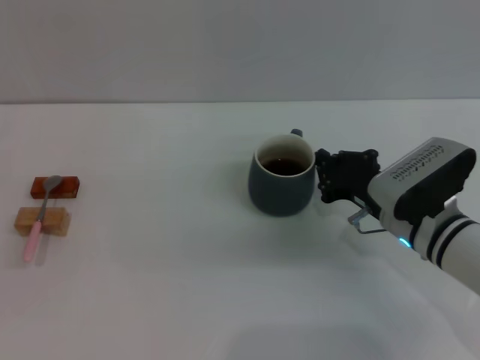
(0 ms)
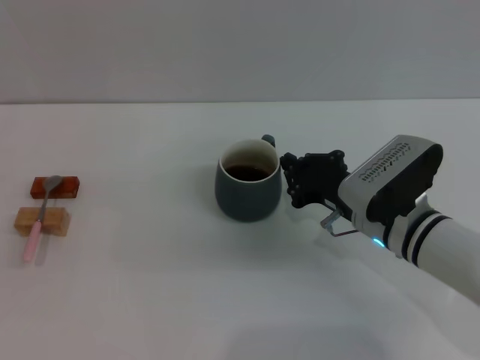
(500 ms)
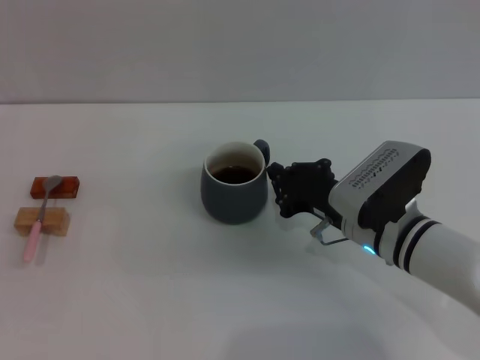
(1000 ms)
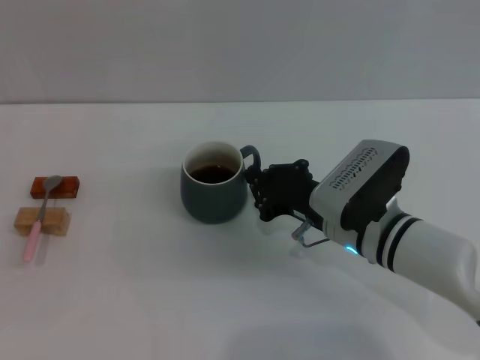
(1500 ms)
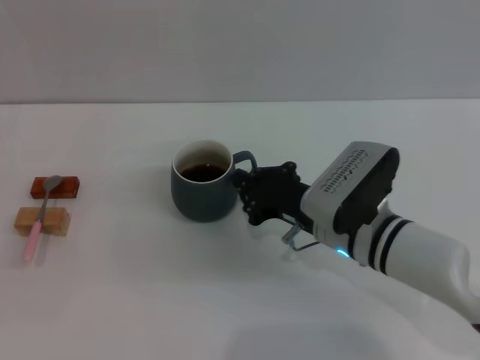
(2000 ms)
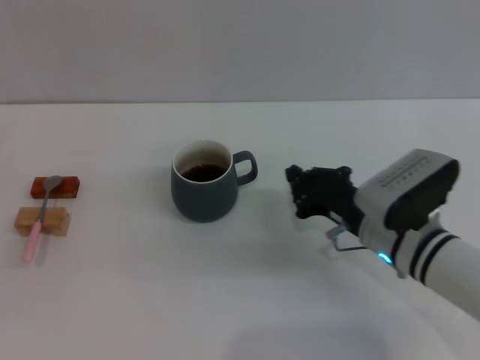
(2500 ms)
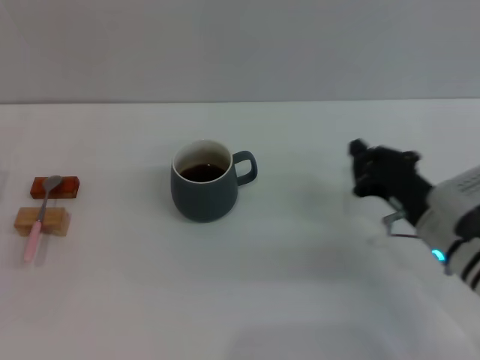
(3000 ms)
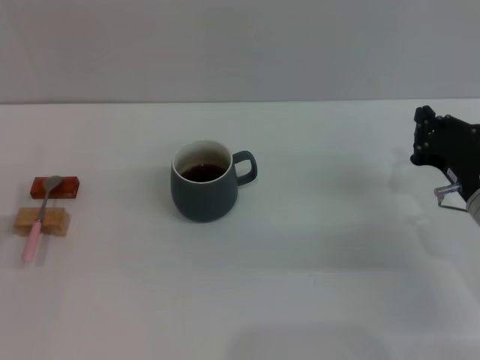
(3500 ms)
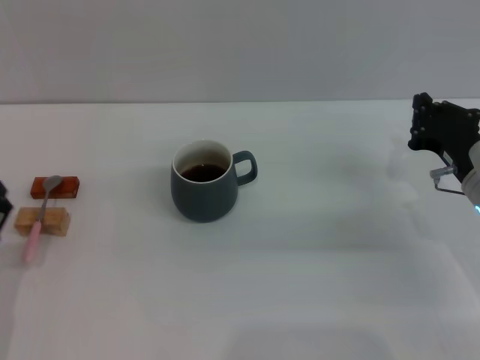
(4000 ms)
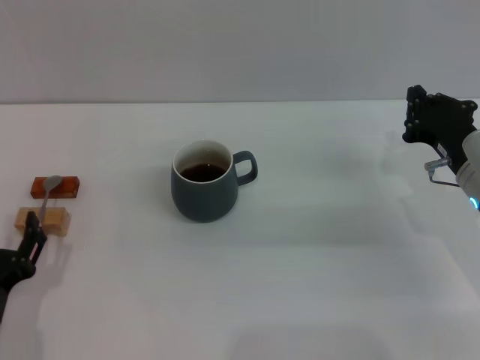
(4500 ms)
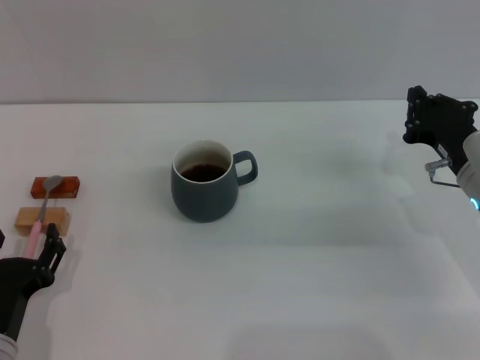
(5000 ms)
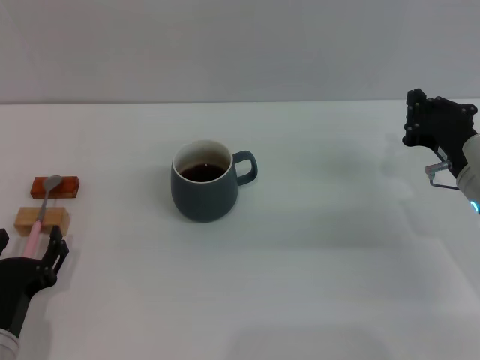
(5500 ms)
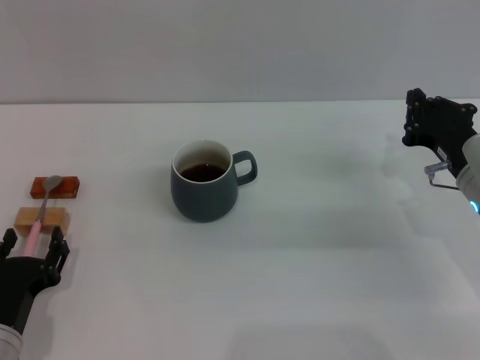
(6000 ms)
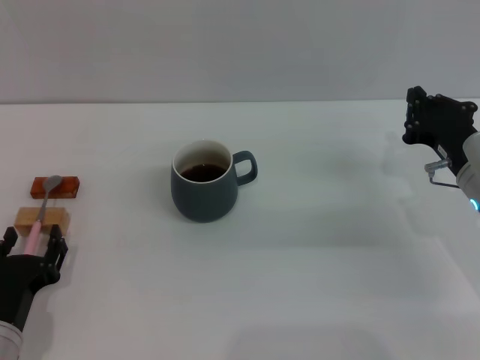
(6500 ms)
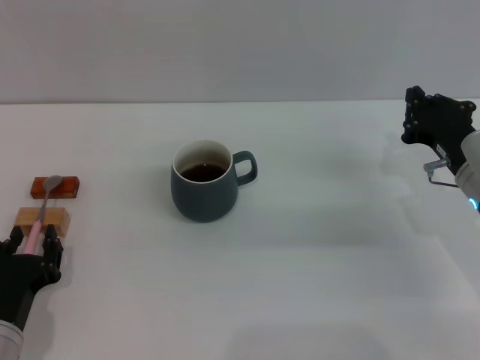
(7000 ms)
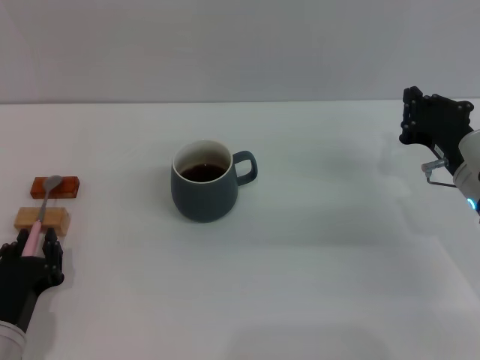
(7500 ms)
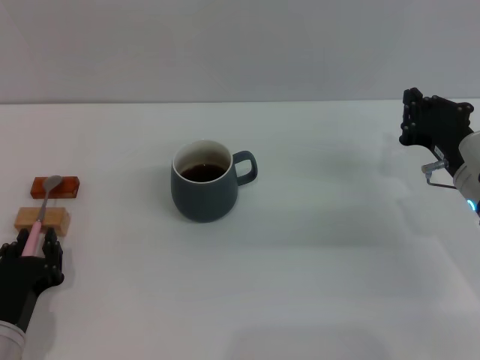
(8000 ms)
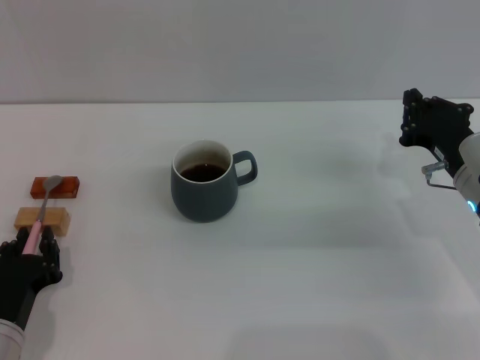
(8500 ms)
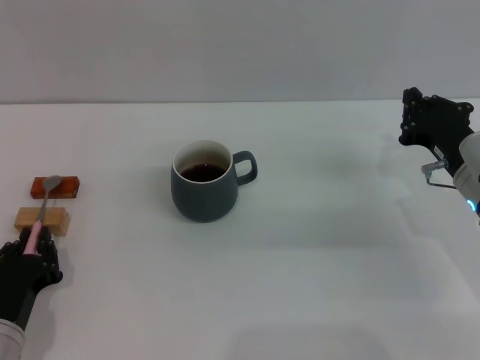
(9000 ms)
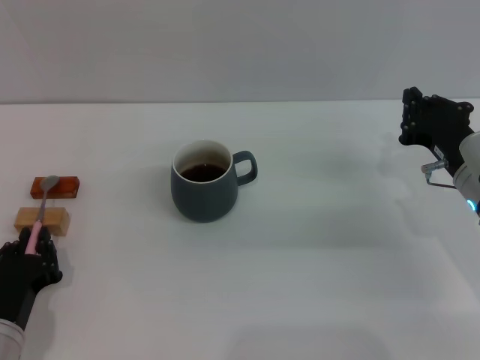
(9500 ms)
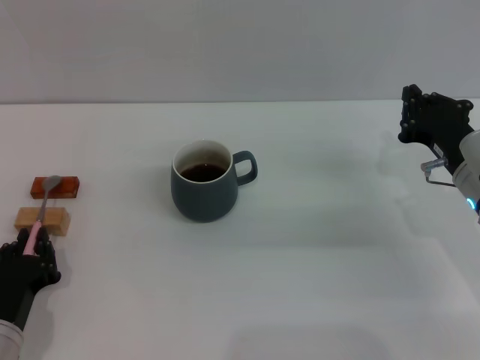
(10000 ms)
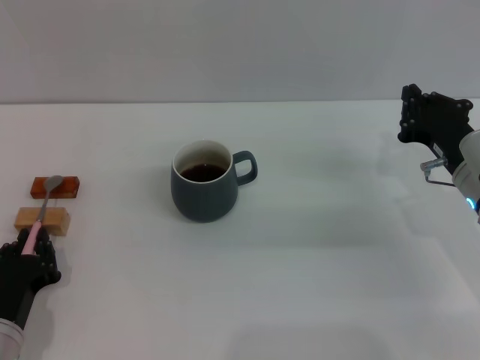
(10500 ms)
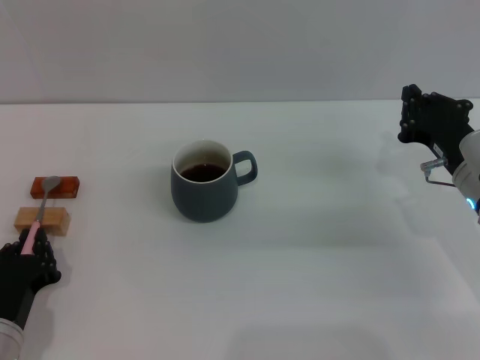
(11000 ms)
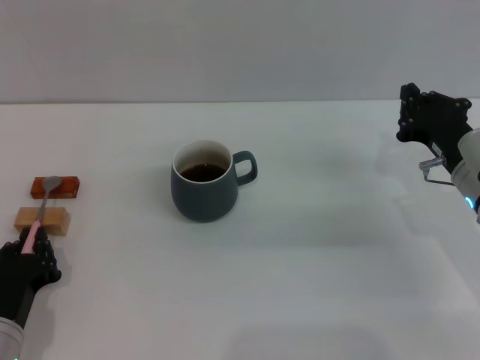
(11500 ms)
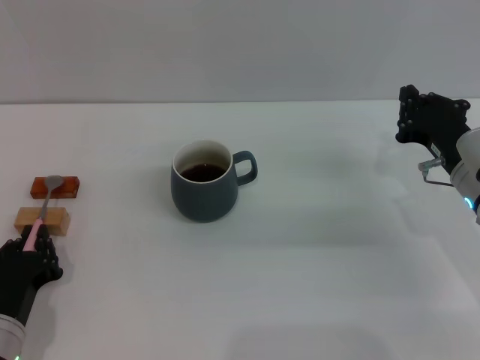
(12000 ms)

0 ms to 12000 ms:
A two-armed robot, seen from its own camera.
Task of the whole recording: Move the grey cup to the center, lift the pink spoon, stir it three times in the cup, and put the spoon into the cup.
Step, 0 ms to 2500 ms: Move the cup with coffee to the center of view with the right gripper.
0 ms to 2000 ms: The right gripper travels to the left by some 5 cm.
2000 ms to 4000 ms: The left gripper shifts roughly 10 cm backward and to the right. Meanwhile the right gripper travels to the right by some 15 cm.
4000 ms to 6000 ms: The left gripper travels downward by some 5 cm.
6000 ms to 8000 ms: The left gripper closes its fingers.
8000 ms to 12000 ms: Both grippers stay about where they are.

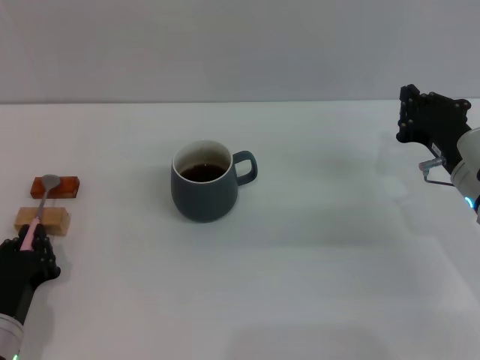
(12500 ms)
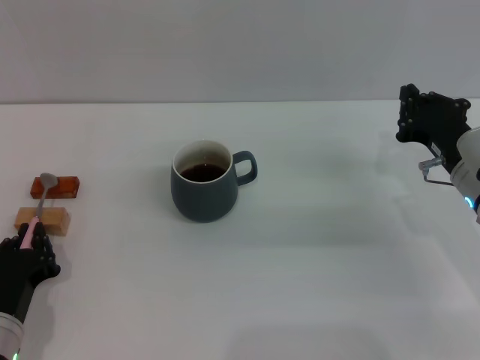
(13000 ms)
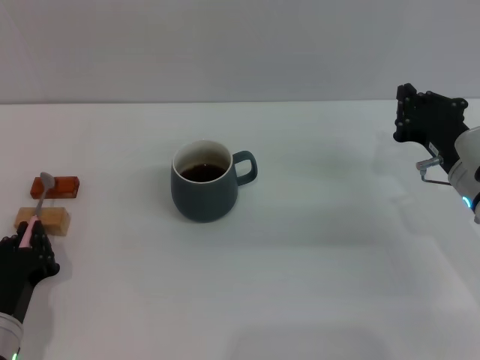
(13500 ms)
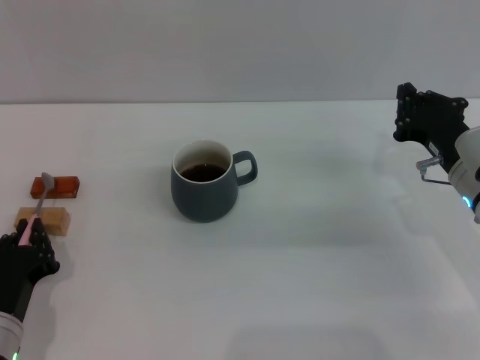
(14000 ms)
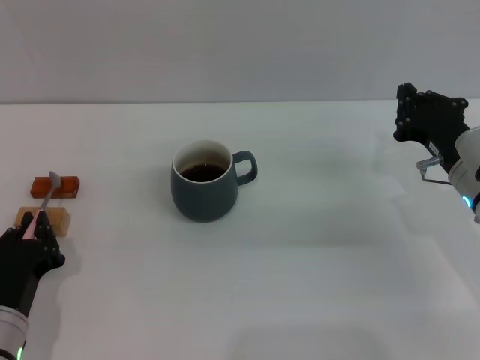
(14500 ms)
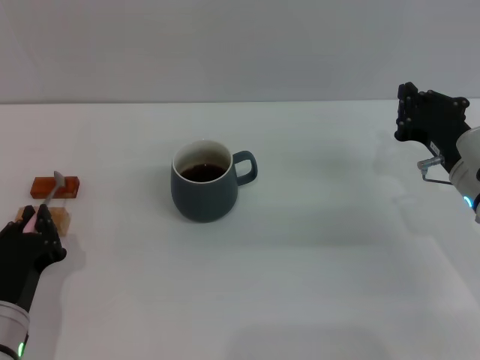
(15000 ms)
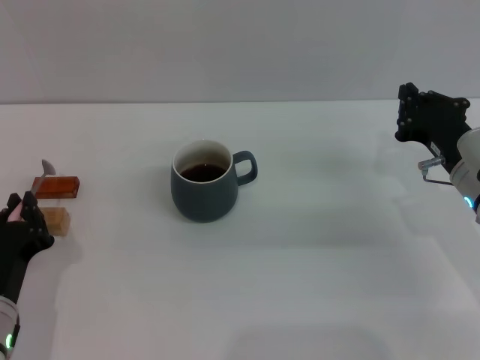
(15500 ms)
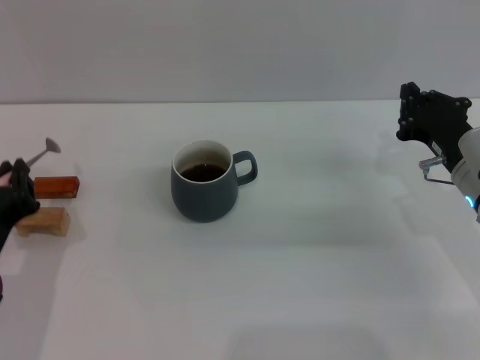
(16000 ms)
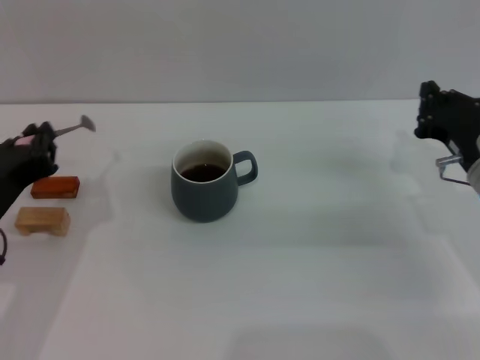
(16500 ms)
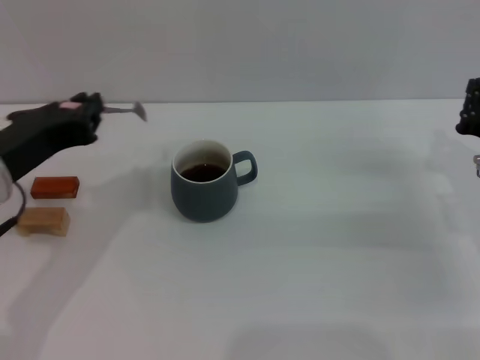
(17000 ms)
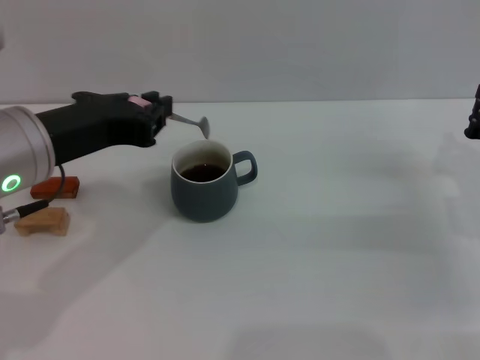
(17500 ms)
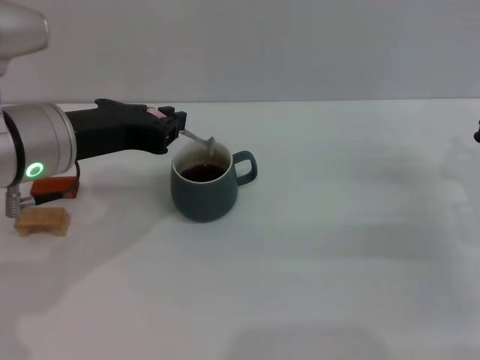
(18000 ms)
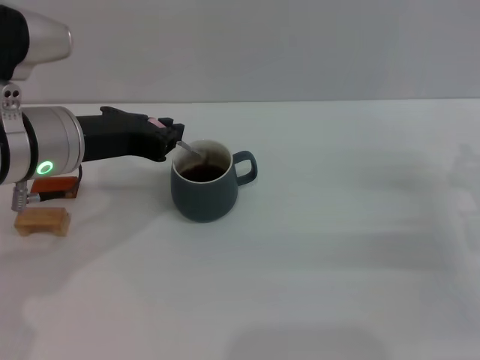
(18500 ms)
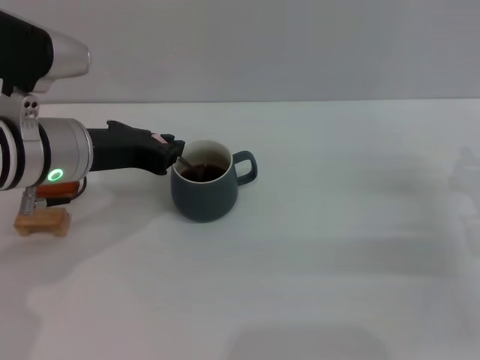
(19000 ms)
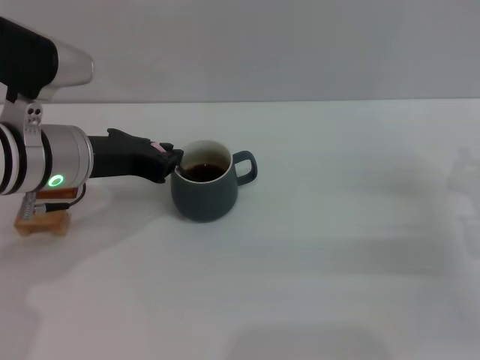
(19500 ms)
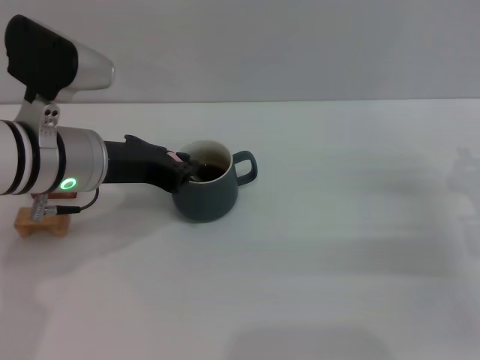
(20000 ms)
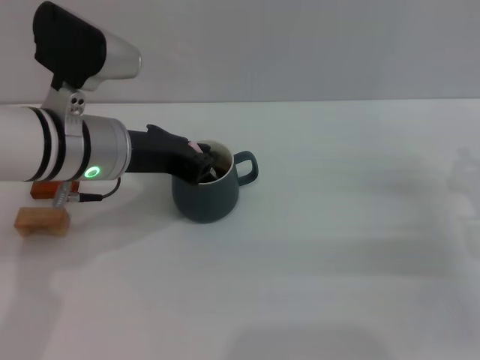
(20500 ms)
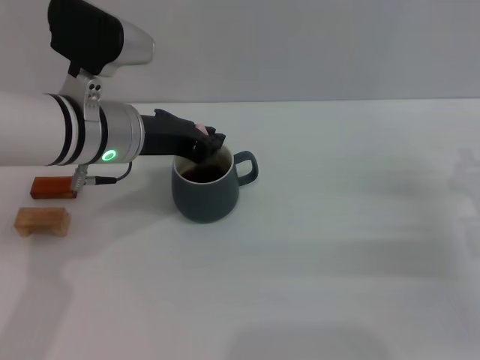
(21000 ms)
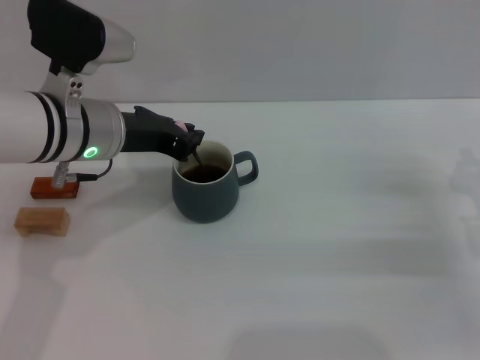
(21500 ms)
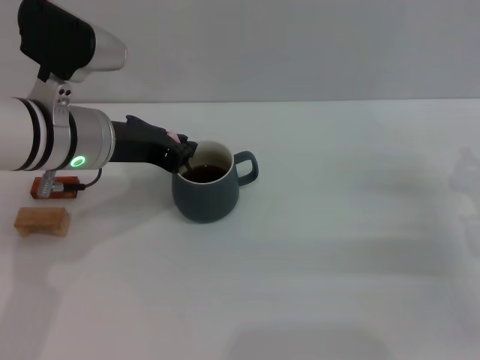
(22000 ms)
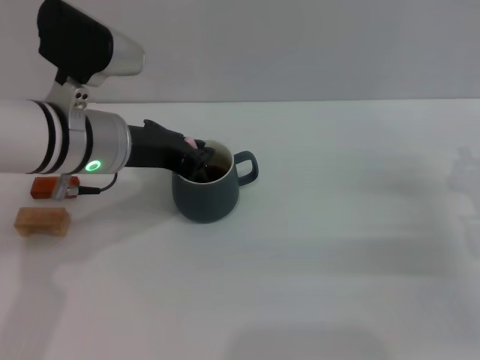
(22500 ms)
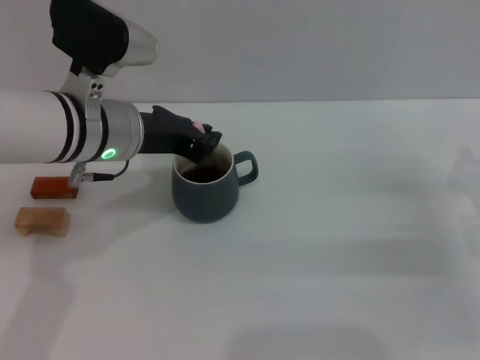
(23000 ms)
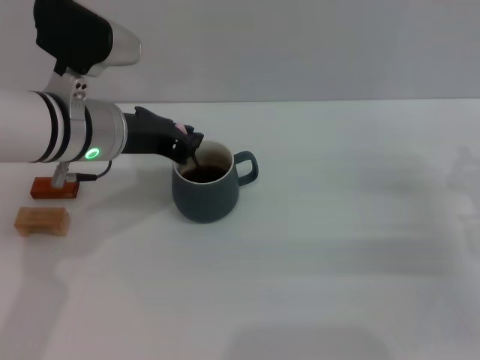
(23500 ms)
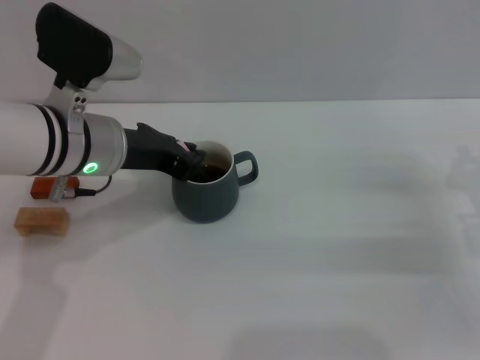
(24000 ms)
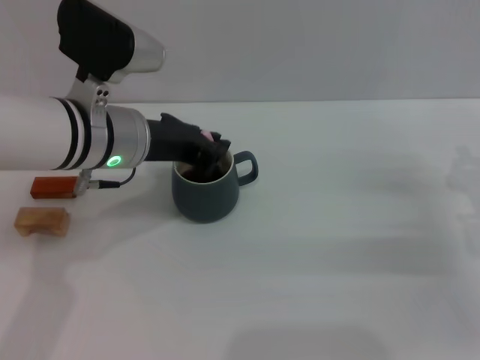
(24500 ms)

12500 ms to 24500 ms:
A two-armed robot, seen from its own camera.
Task of the whole recording: Move the grey cup to the center, lift the pink spoon, stir it three times in the cup, and put the spoon into the cup.
Step, 12500 ms to 16500 ms: Pick up the spoon with the left gripper.
12500 ms to 14500 ms: There are only small adjustments of the grippers.
14500 ms to 16500 ms: The left gripper goes about 15 cm upward.
16500 ms to 18500 ms: The left gripper goes roughly 10 cm forward, upward and to the right. Meanwhile the right gripper moves about 5 cm.
18500 ms to 22500 ms: The grippers stay close to where they were, moving slightly.
22500 ms to 24500 ms: There are only small adjustments of the grippers.

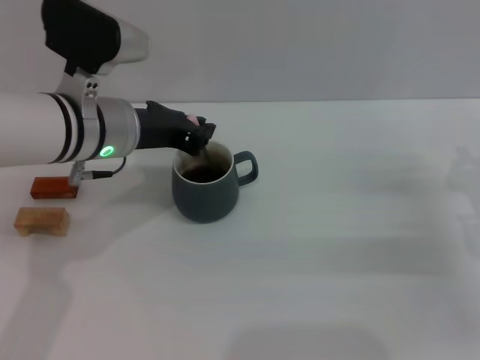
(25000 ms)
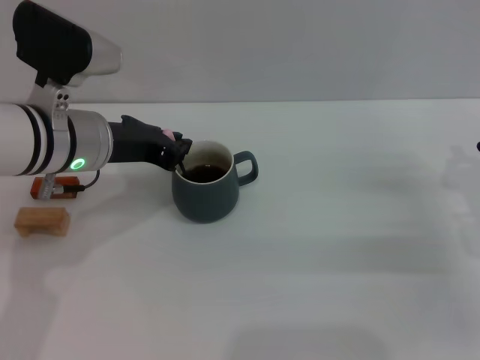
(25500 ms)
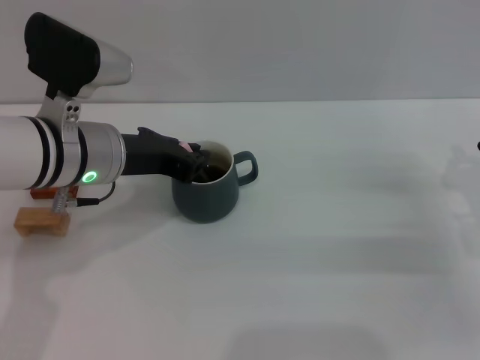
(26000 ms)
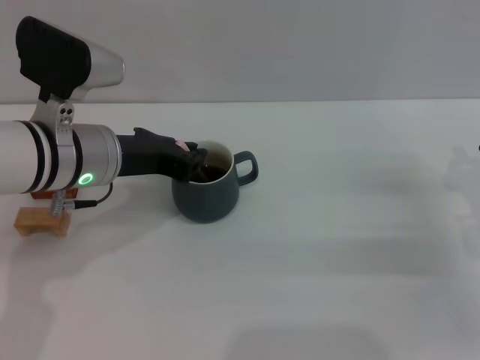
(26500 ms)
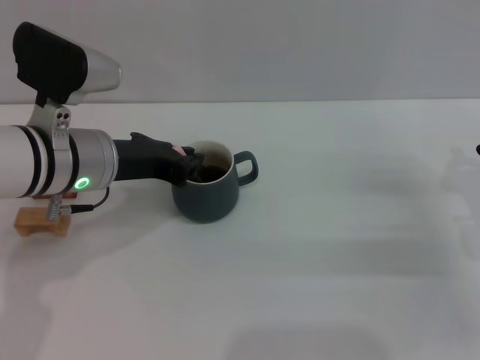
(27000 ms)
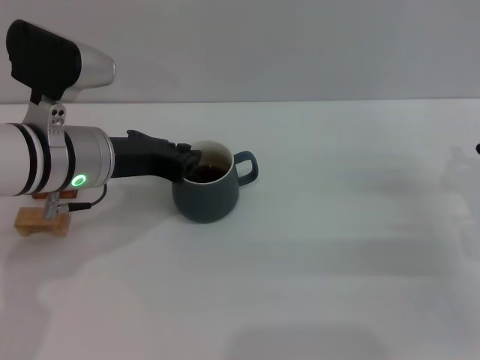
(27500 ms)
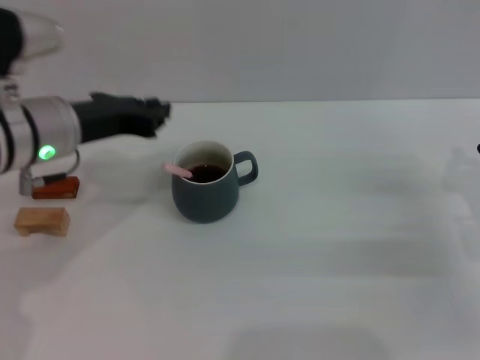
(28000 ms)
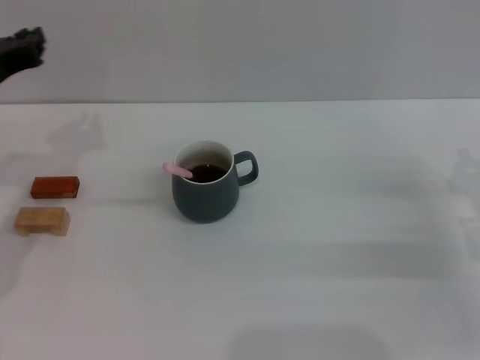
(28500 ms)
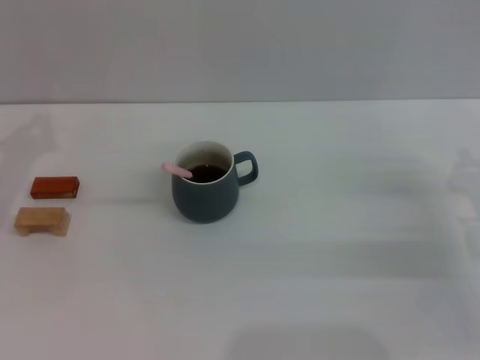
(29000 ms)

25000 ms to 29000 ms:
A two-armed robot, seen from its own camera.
Task of the whole recording: Move the grey cup to the center, lift the pink spoon, stir it three times in the cup, and put the spoon into the cup.
Step, 25000 ms to 28000 ms: Stir the coffee in the cup with the left gripper.
25000 ms to 27000 ms: The grippers move only a little.
27000 ms to 29000 ms: The left gripper travels to the left by about 15 cm.
